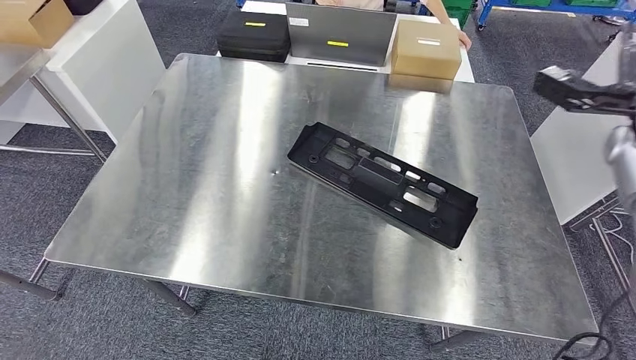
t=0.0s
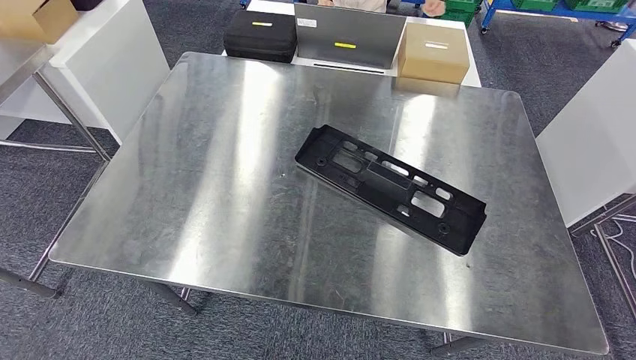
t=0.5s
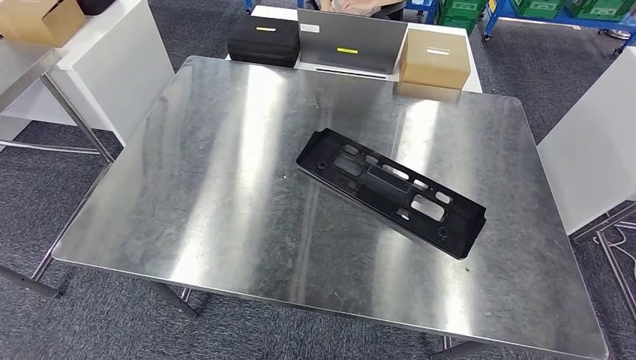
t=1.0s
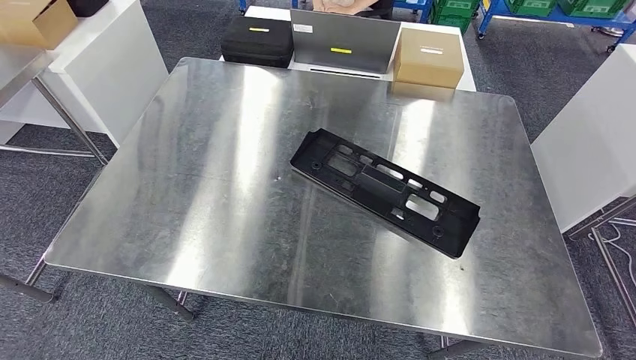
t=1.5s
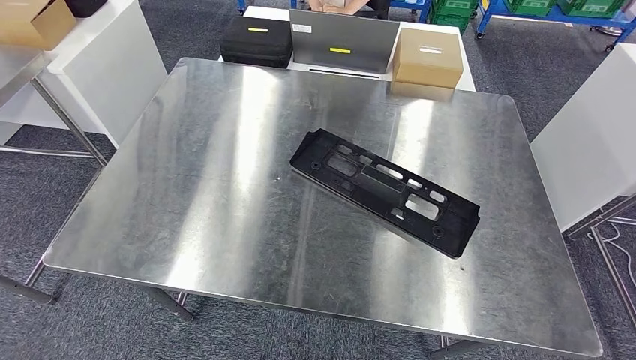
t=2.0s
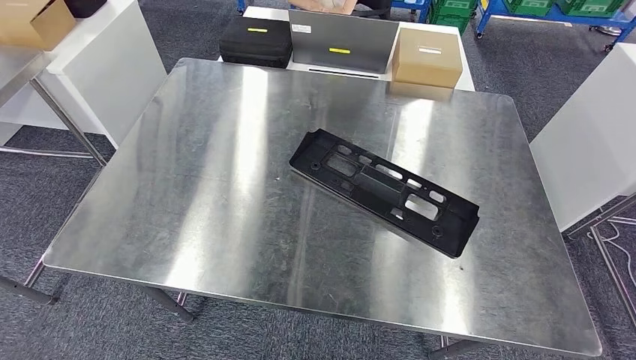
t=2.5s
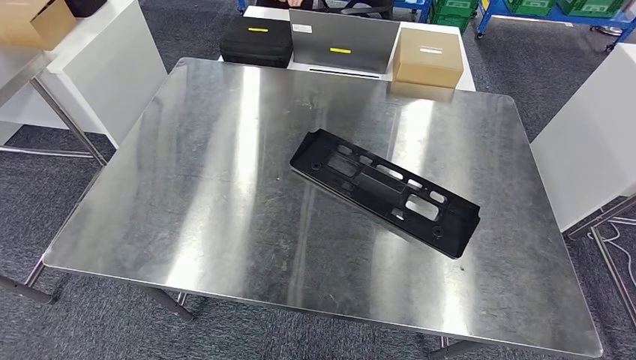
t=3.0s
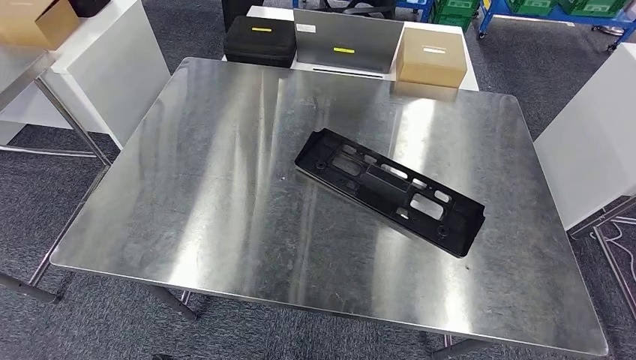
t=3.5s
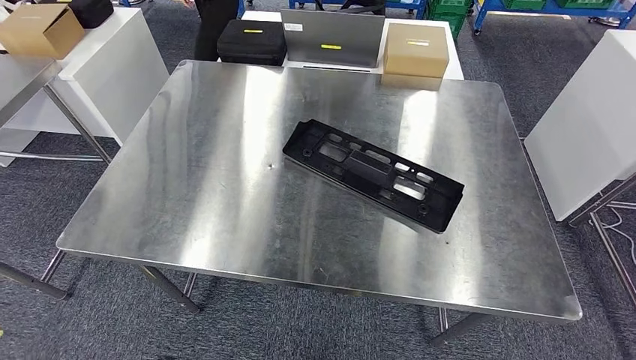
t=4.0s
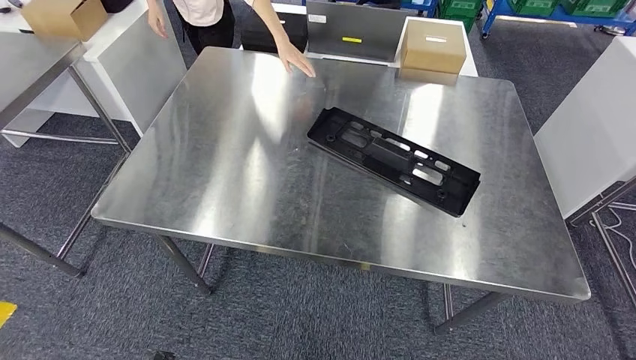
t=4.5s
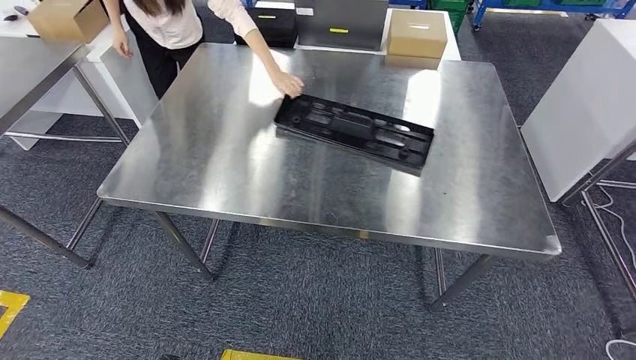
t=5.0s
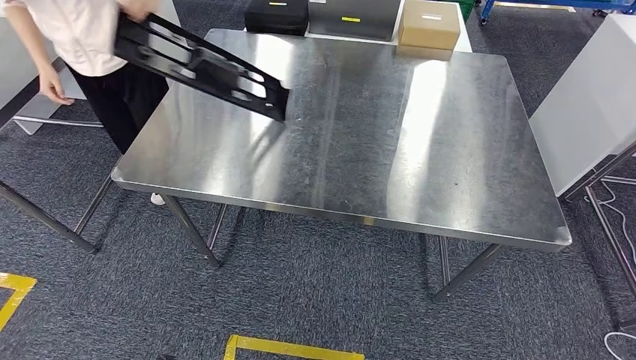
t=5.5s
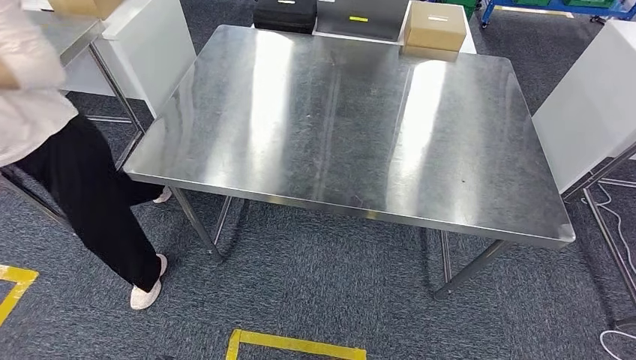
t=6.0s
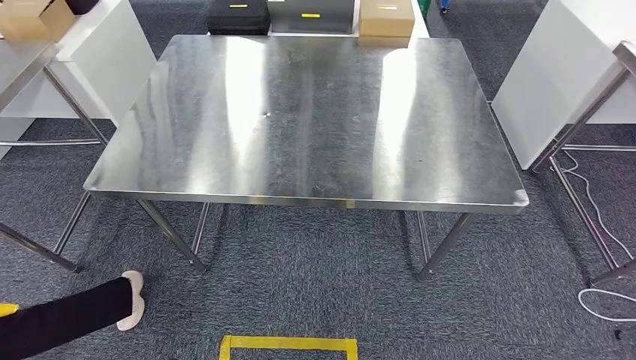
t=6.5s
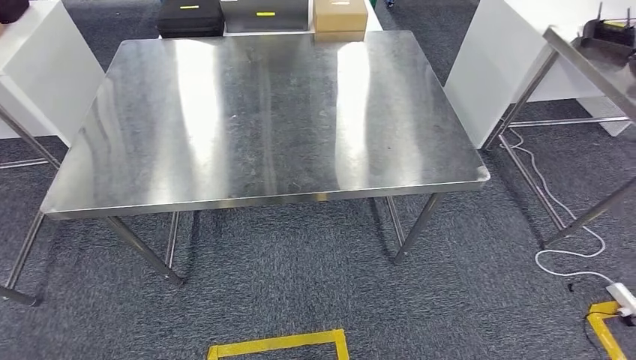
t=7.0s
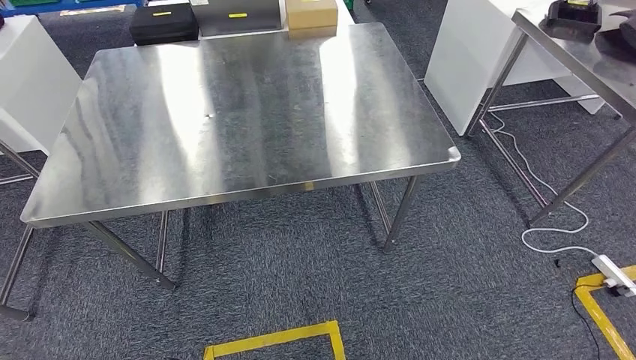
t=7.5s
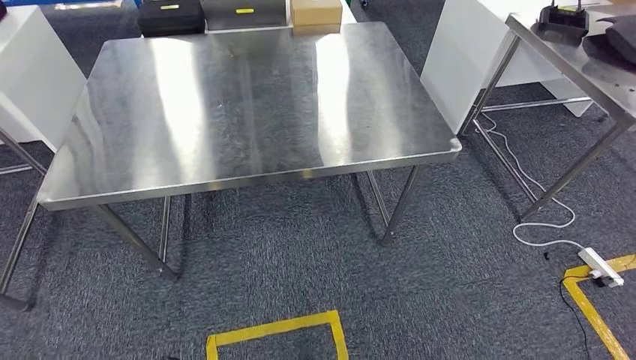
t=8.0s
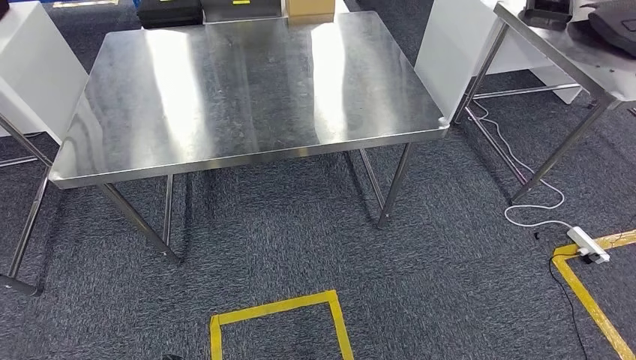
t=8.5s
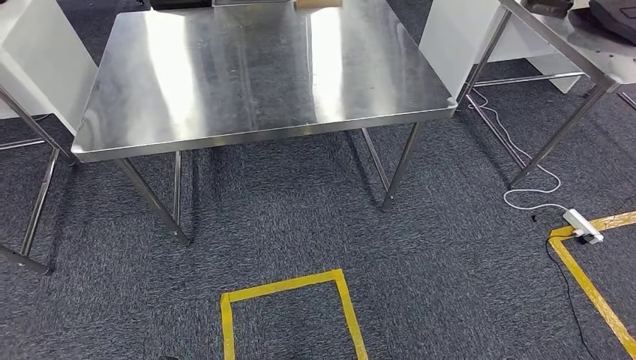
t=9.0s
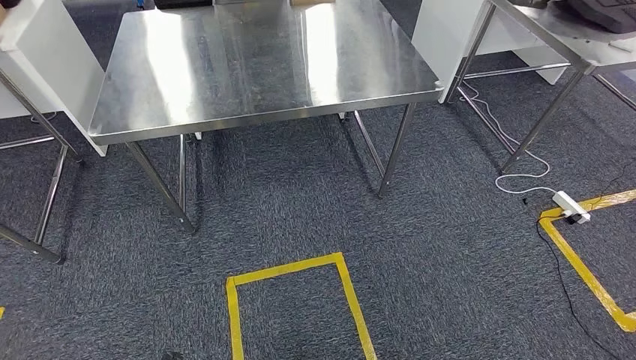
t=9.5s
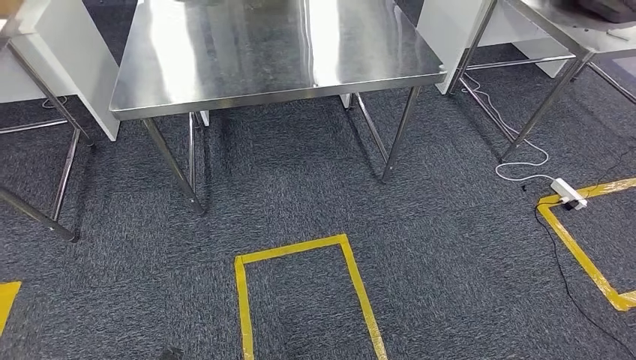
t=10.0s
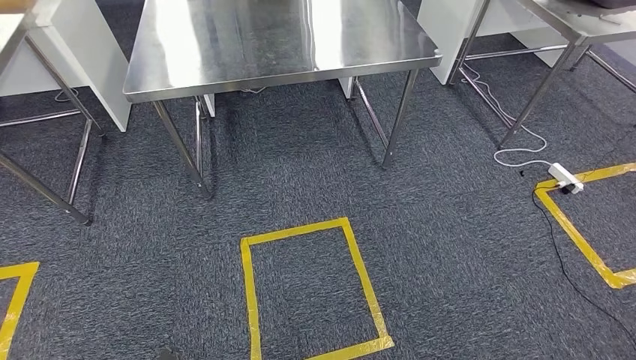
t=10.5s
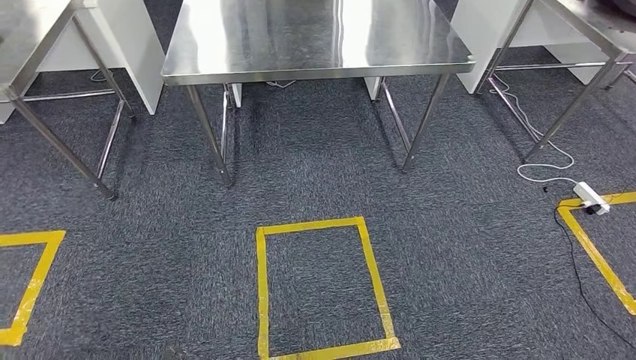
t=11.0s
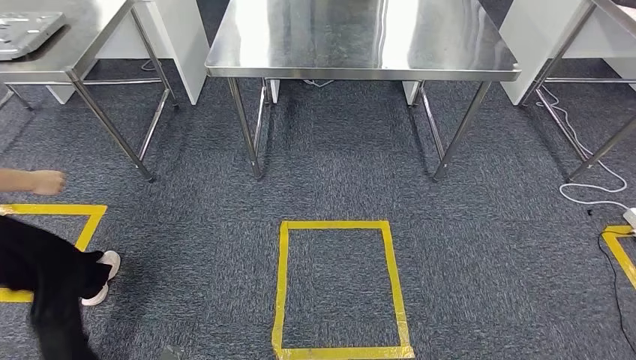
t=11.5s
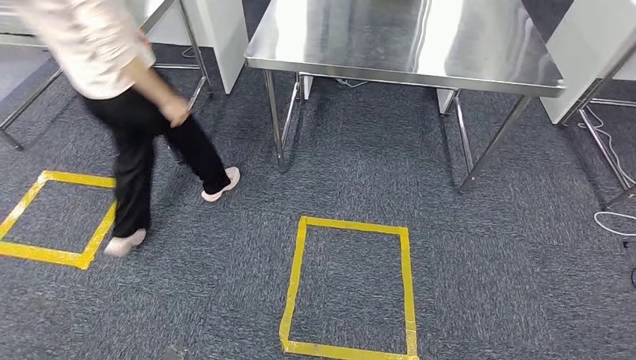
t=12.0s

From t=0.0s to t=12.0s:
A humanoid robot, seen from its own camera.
From t=0.0s to t=2.0s: The left hand moves to the right, approximately 5 cm. The right hand is displaced backward and downward by some 60 cm.

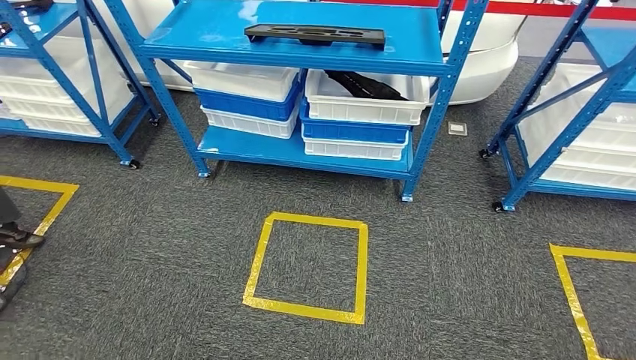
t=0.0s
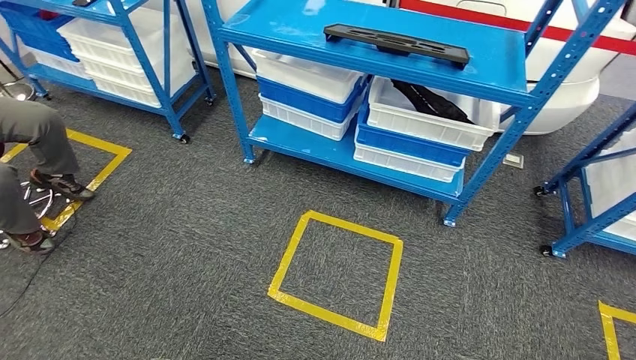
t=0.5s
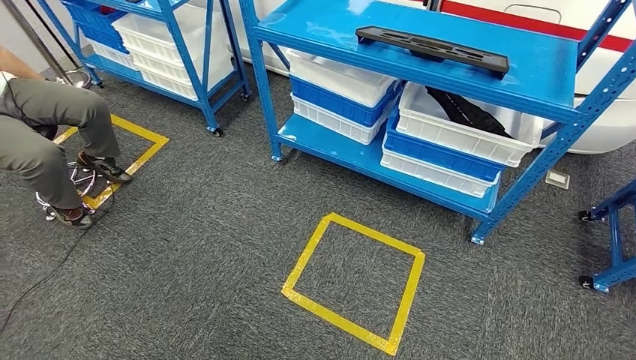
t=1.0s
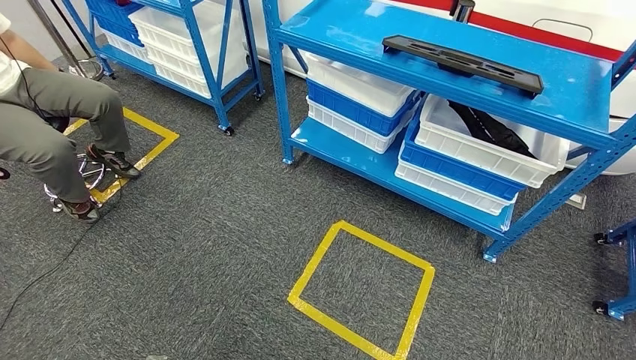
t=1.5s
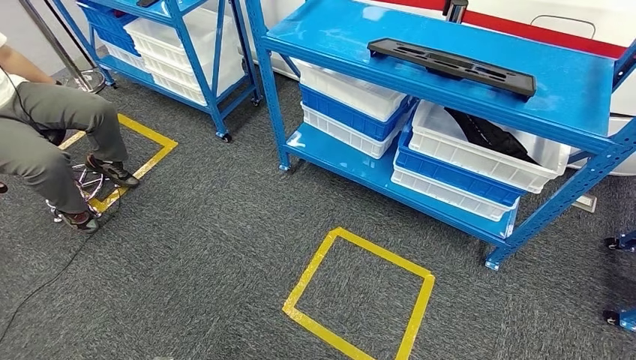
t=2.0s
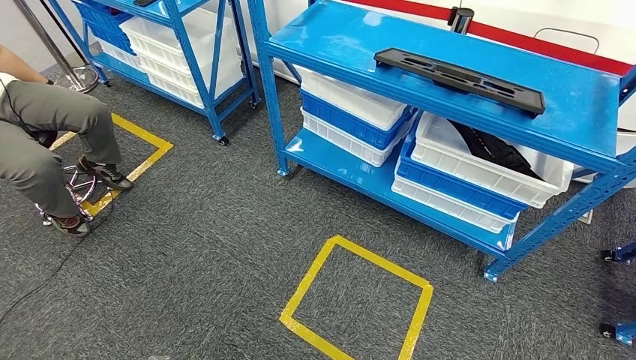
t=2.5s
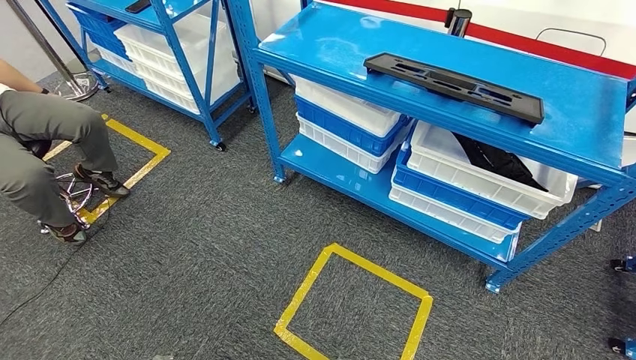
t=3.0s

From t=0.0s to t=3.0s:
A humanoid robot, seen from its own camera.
Step, from t=0.0s to t=3.0s: Move to the initial position of the shelf.
